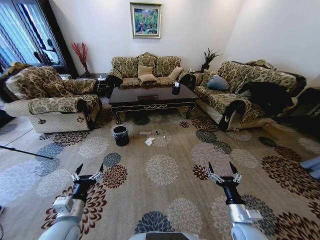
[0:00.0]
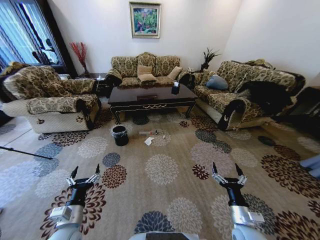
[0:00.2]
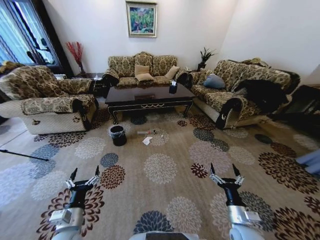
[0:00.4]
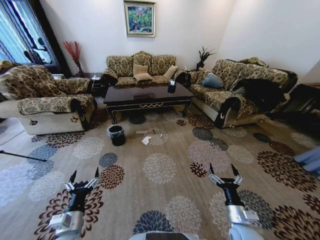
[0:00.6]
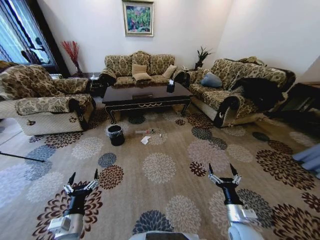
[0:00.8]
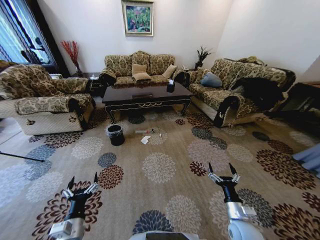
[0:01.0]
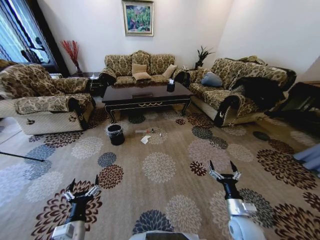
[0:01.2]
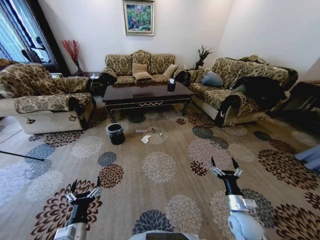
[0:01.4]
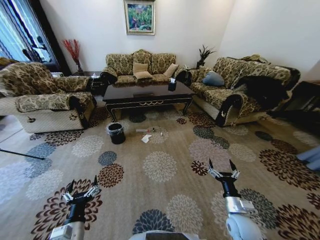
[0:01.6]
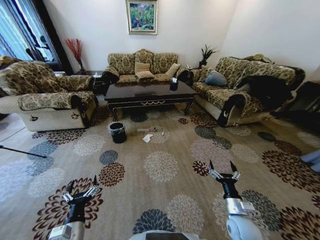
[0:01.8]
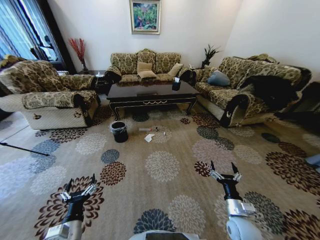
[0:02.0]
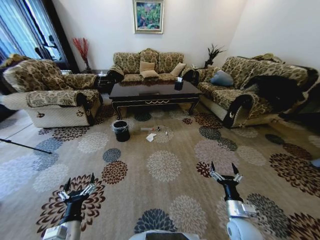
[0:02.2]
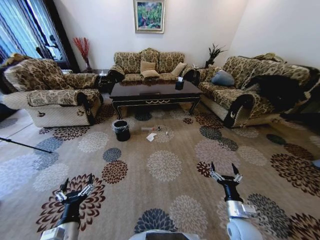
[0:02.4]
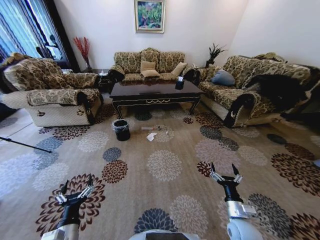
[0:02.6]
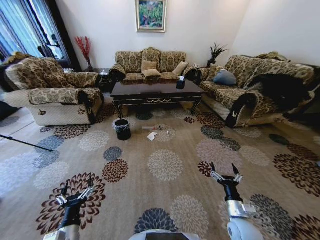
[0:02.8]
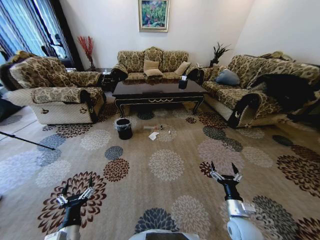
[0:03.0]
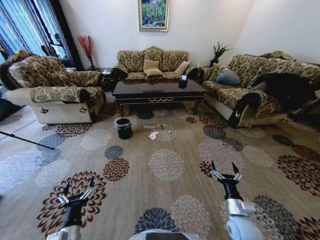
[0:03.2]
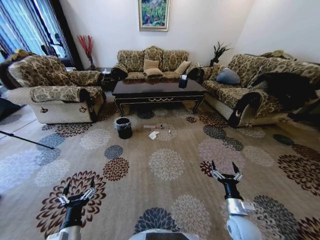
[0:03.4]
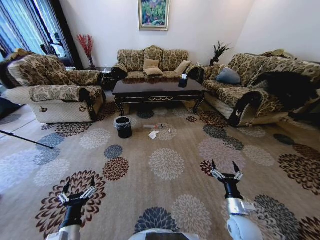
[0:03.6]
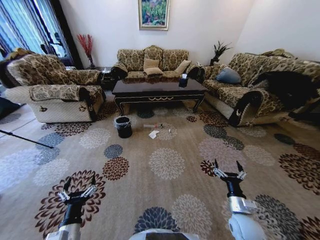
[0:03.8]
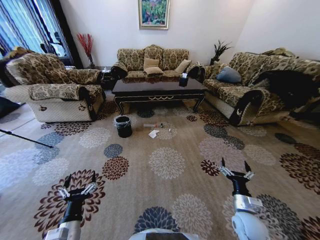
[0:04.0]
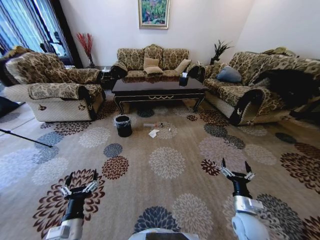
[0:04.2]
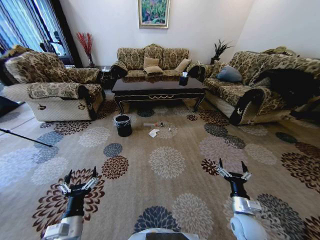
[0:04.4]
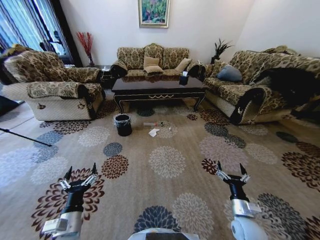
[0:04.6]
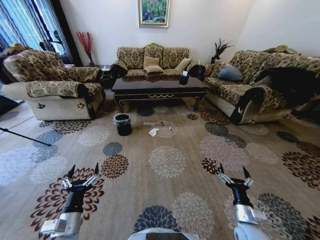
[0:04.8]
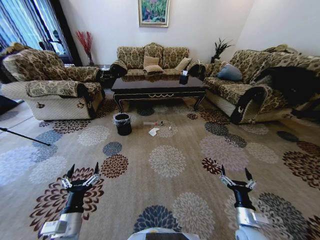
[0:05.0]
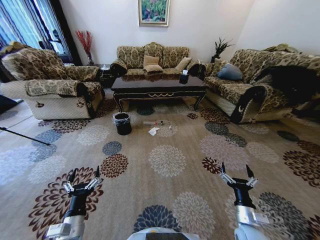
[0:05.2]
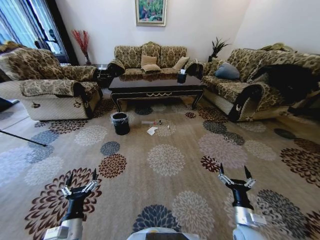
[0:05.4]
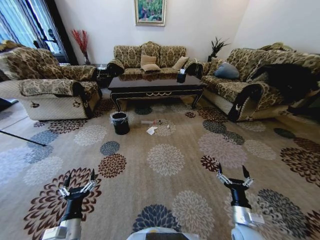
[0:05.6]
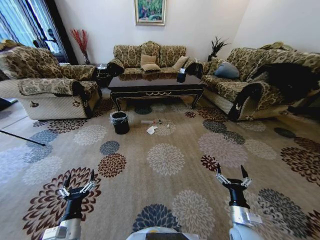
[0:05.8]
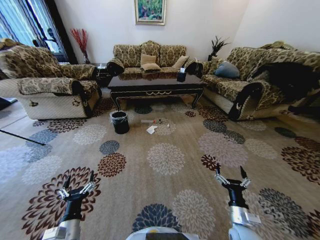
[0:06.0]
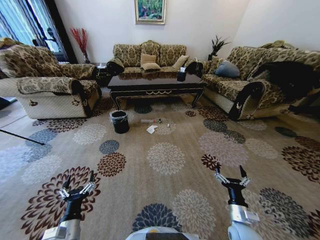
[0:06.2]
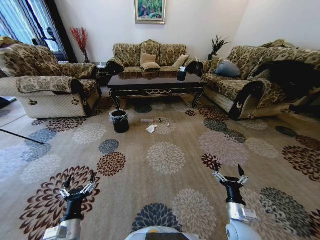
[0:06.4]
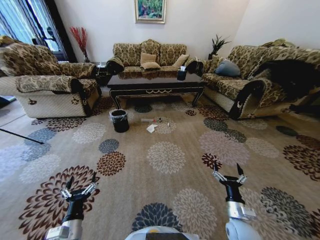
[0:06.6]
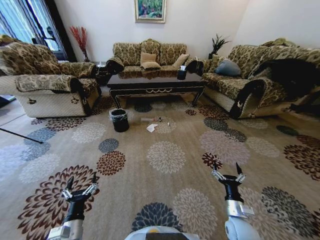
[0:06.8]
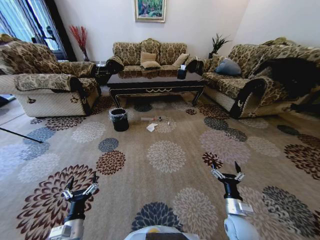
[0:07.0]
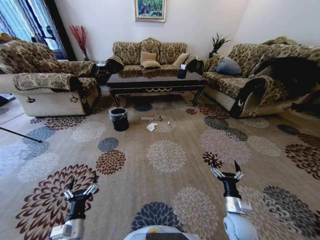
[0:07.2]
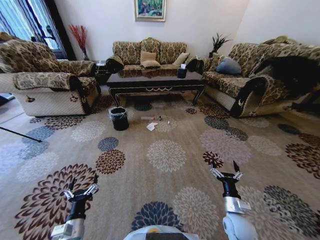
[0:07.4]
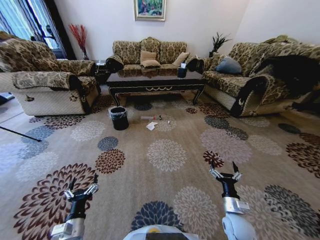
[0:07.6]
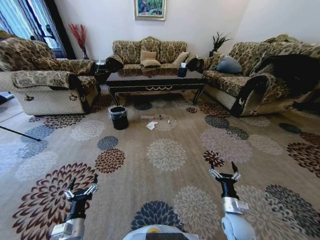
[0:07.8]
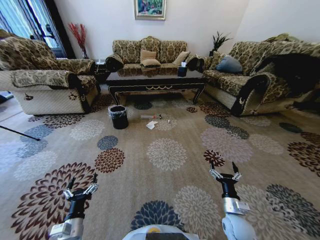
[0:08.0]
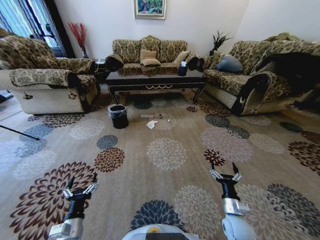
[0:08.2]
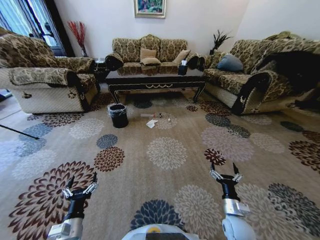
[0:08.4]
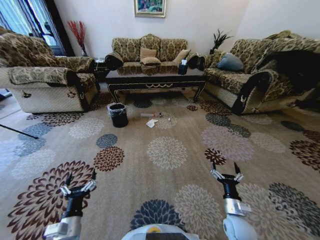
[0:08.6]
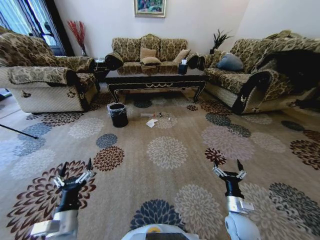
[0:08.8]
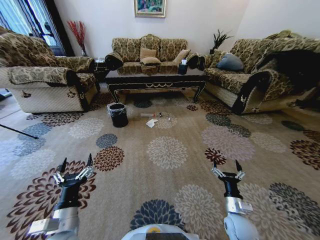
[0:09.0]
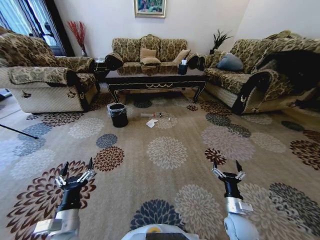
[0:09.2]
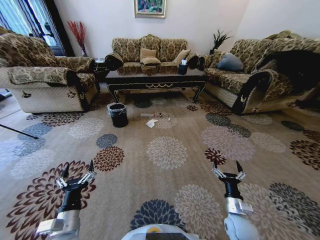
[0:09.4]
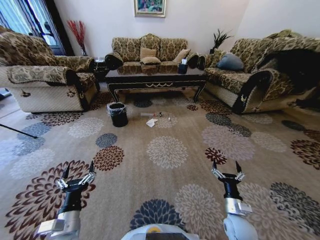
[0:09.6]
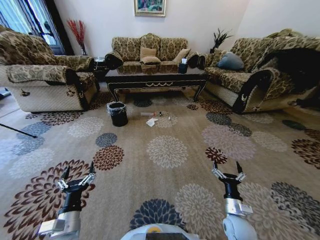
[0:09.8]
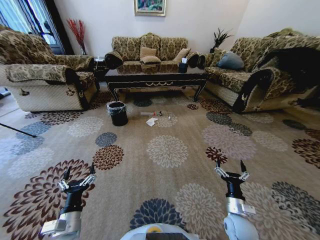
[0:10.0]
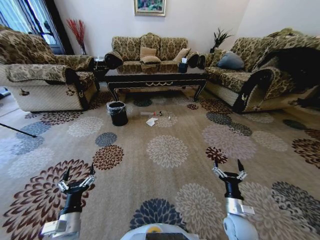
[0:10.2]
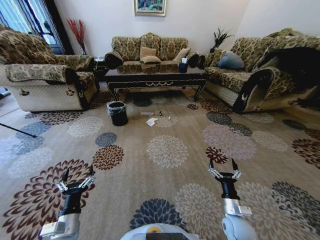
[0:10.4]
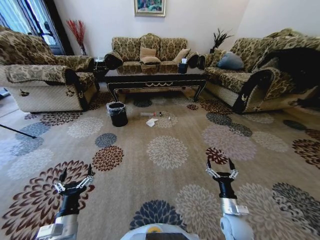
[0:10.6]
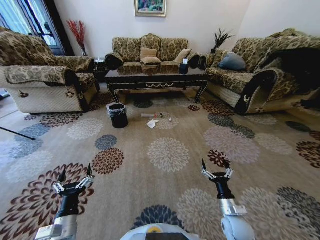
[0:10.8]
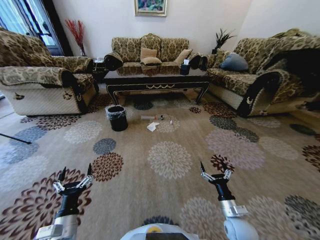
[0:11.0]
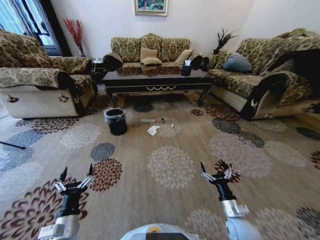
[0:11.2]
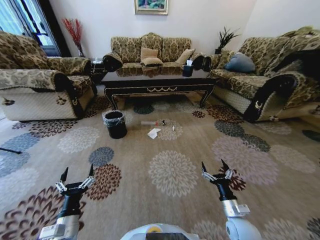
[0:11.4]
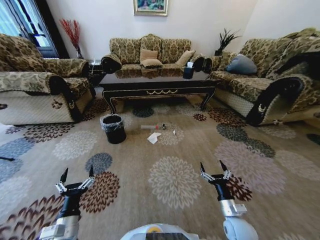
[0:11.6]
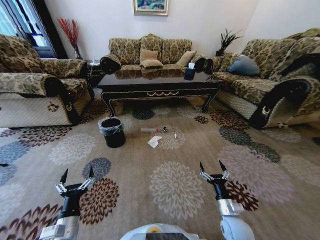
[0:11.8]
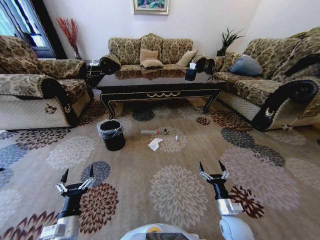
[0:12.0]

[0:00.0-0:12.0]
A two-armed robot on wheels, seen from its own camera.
Task of the whole recording: Move to the front of the table and pick up the trash from the floor, then place it into the trash bin.
0:07.6 to 0:09.0: The left gripper goes approximately 10 cm upward.
0:09.0 to 0:10.4: The left gripper shifts by some 5 cm.

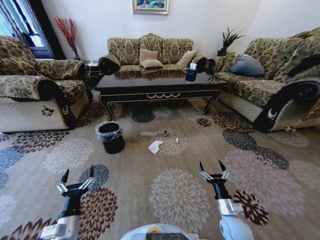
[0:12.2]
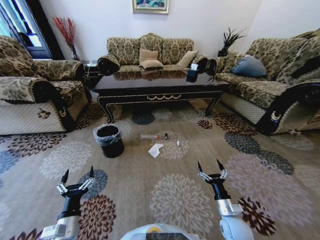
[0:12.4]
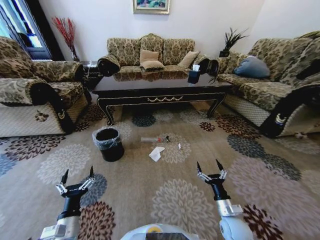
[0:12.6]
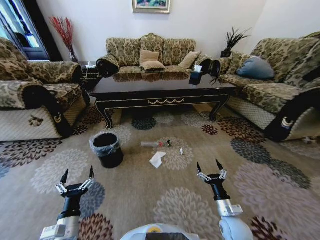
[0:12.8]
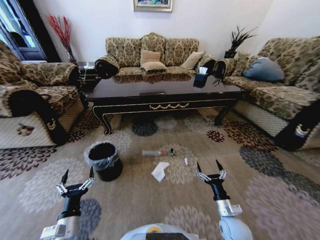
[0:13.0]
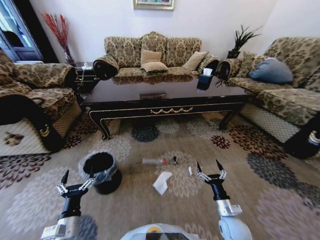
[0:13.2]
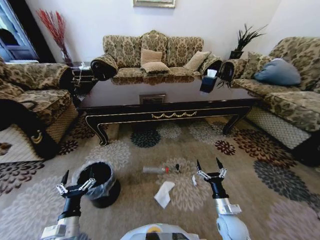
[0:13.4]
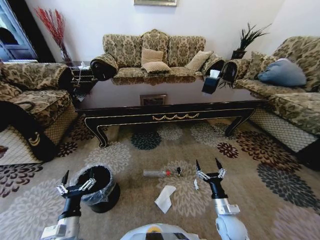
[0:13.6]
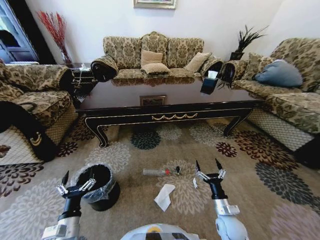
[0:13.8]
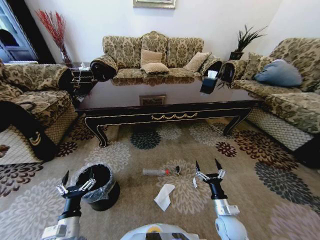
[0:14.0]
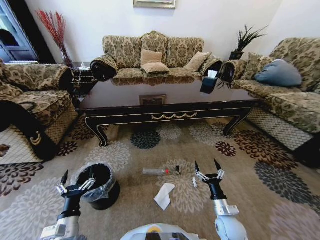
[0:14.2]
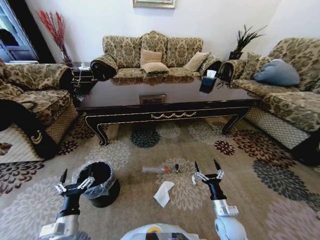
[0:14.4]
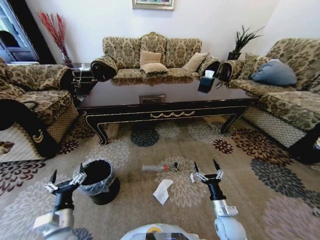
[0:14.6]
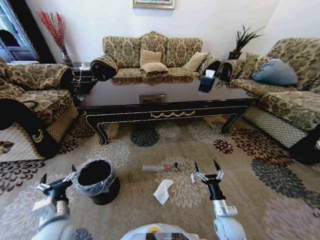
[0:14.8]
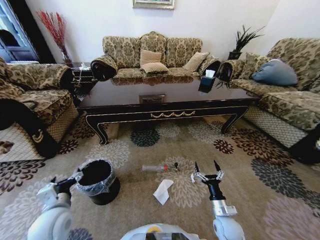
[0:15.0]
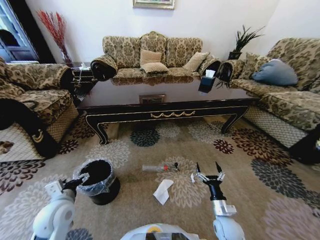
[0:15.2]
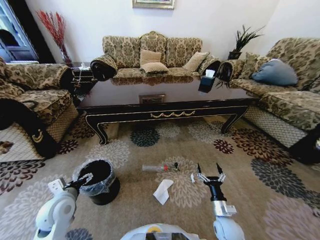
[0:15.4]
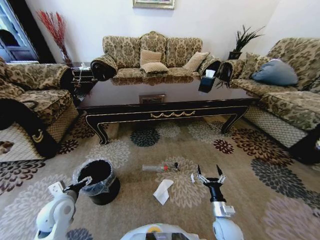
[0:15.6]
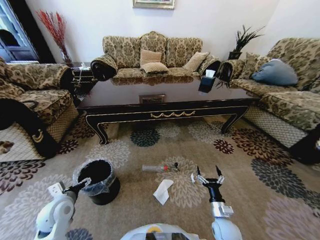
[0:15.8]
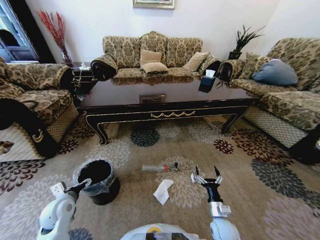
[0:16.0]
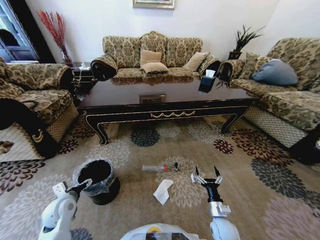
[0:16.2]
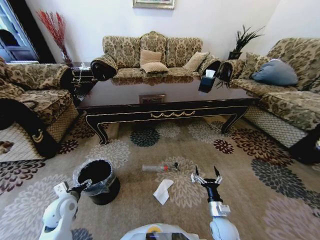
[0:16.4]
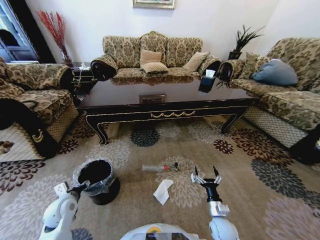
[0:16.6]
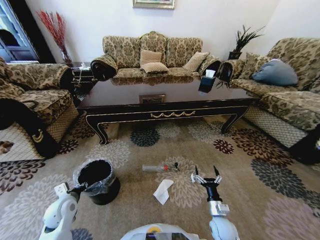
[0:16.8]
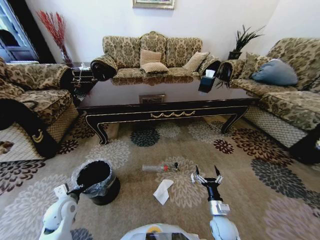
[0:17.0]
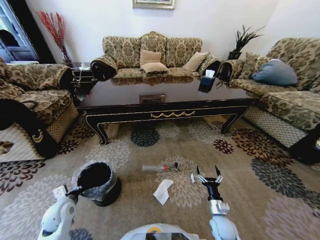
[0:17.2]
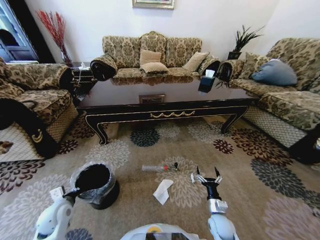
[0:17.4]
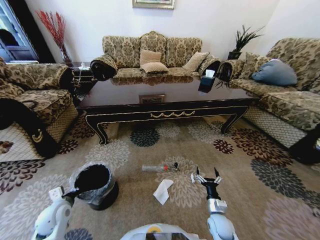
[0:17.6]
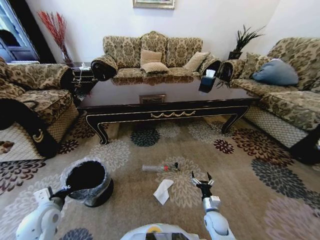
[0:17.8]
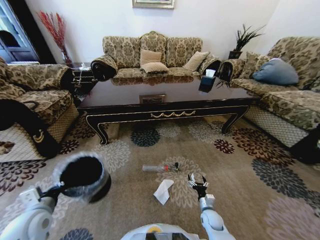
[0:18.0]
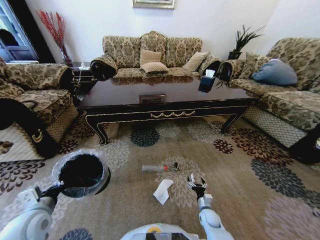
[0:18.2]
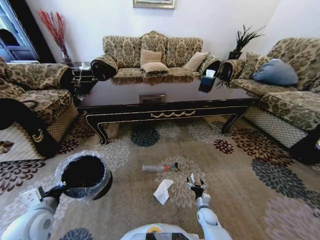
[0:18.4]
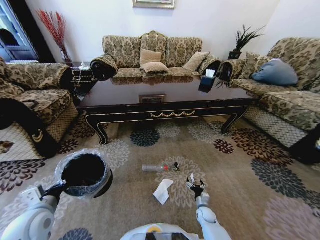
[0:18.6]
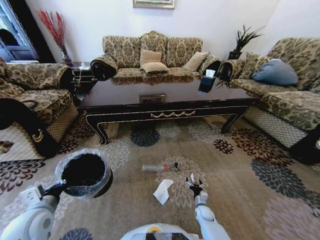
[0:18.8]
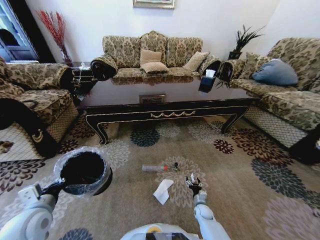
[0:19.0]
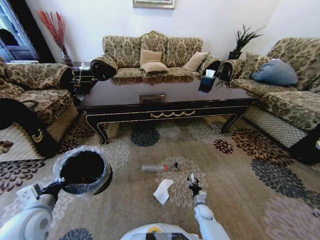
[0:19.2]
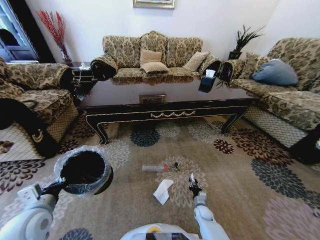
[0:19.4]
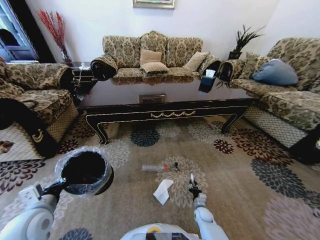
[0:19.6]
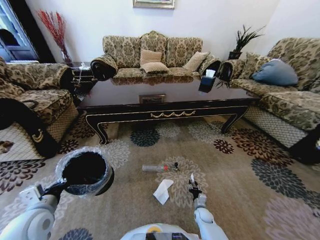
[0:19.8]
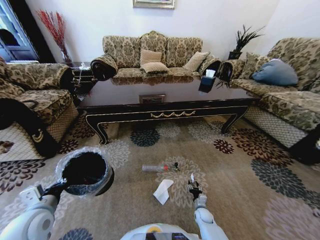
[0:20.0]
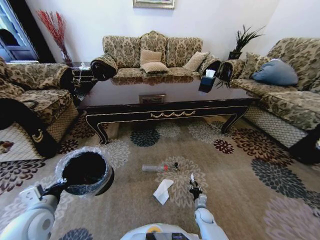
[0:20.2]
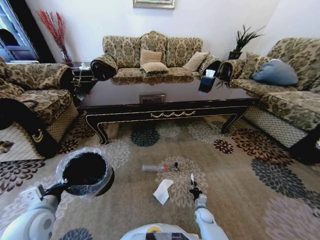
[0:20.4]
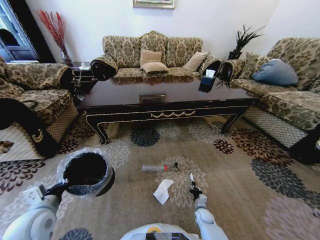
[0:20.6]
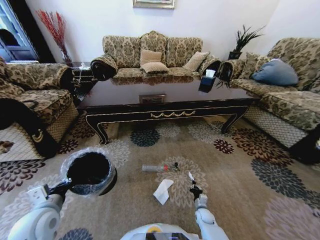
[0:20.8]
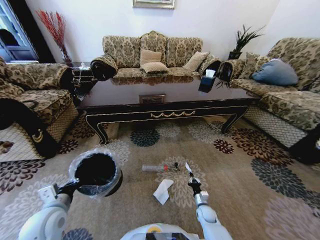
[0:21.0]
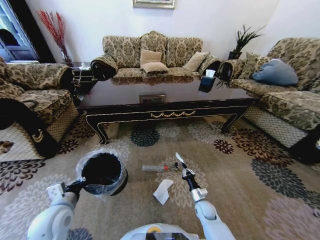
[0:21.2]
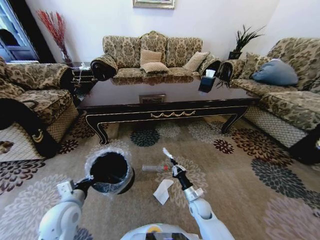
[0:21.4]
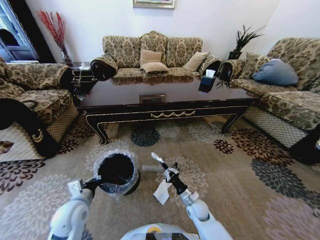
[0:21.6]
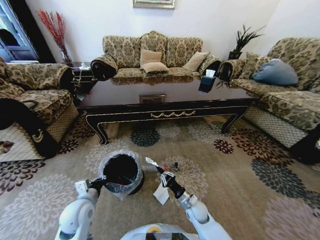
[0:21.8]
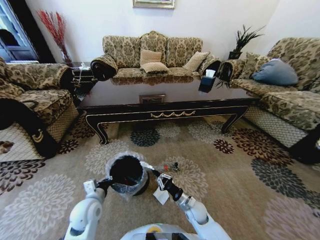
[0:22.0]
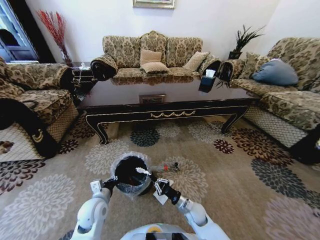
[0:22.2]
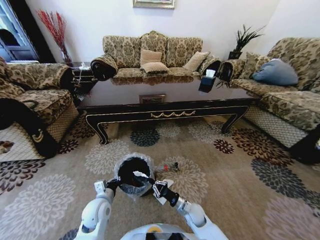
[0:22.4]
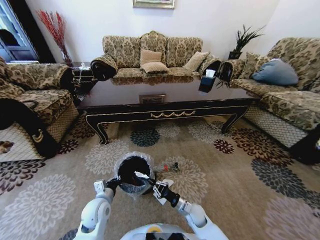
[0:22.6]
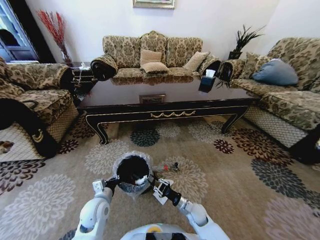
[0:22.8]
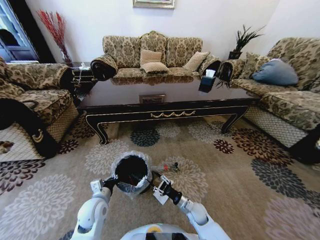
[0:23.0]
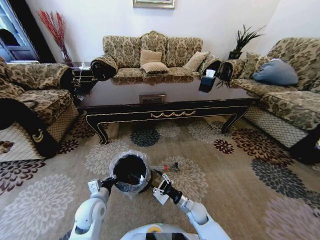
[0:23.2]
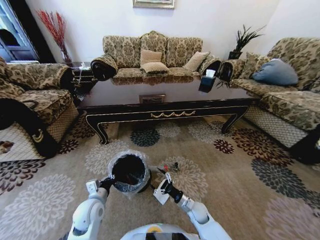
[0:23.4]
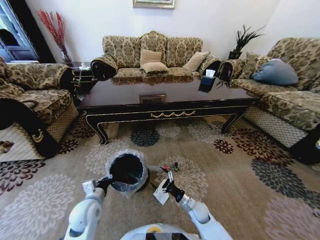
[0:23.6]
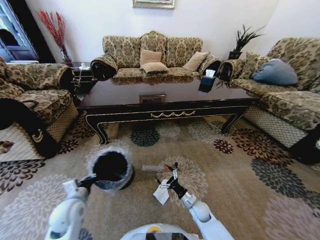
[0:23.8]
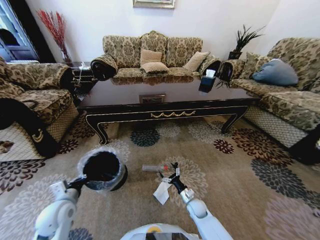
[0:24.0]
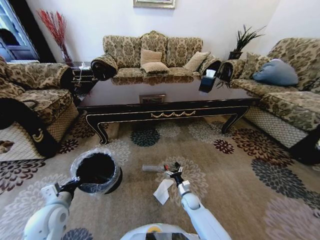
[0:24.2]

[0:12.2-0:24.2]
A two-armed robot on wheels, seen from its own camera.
Task of the whole recording: Move to the front of the table and pick up the trash from the floor, then place it into the trash bin.
0:13.8 to 0:15.2: The left gripper is displaced forward and upward by roughly 10 cm.
0:15.2 to 0:16.6: The left gripper shifts approximately 5 cm downward.
0:16.6 to 0:18.2: The right gripper heads downward and forward, covering roughly 10 cm. The left gripper moves upward and backward, some 10 cm, and closes up.
0:18.2 to 0:19.8: The right gripper is displaced downward by some 5 cm, and closes up.
0:19.8 to 0:21.2: The left gripper moves roughly 5 cm. Meanwhile the right gripper shifts approximately 10 cm upward, and closes.
0:21.2 to 0:22.6: The right gripper travels to the left by approximately 5 cm. The left gripper goes approximately 10 cm downward and to the right.
0:22.6 to 0:24.2: The right gripper goes some 10 cm forward and downward, and opens; the left gripper moves to the left and upward, some 15 cm.
